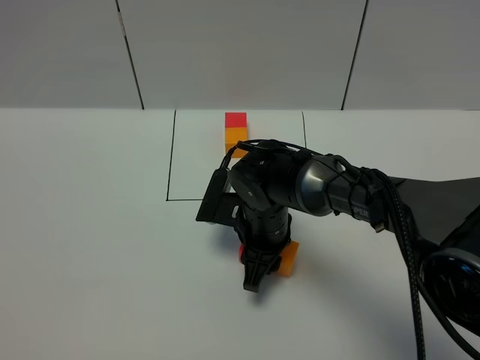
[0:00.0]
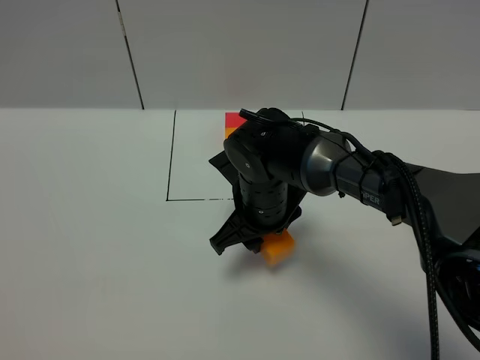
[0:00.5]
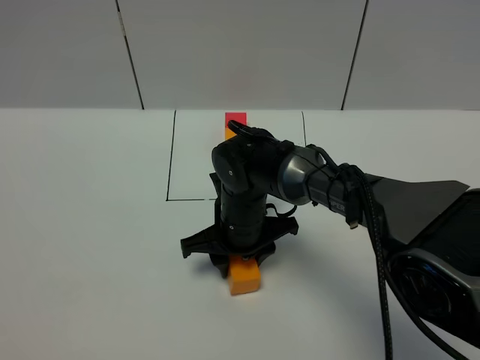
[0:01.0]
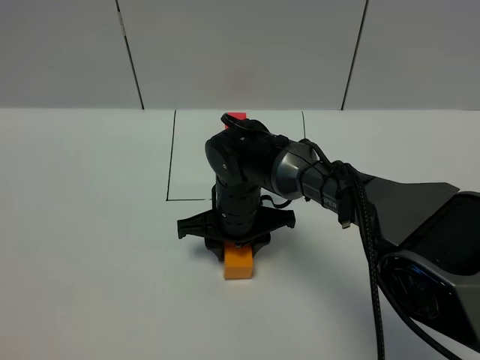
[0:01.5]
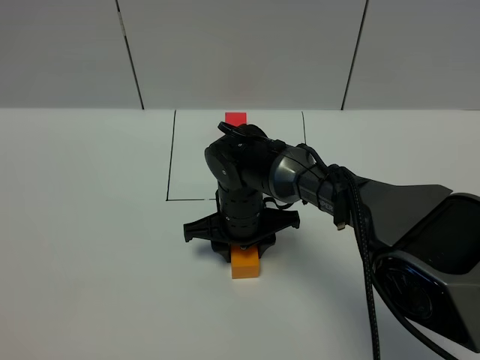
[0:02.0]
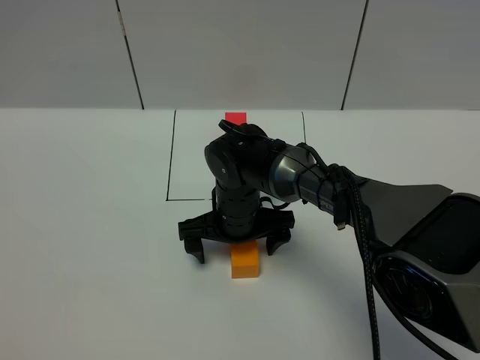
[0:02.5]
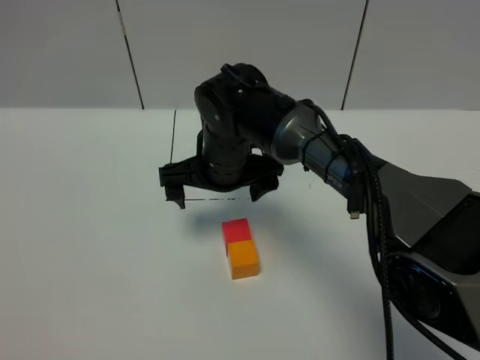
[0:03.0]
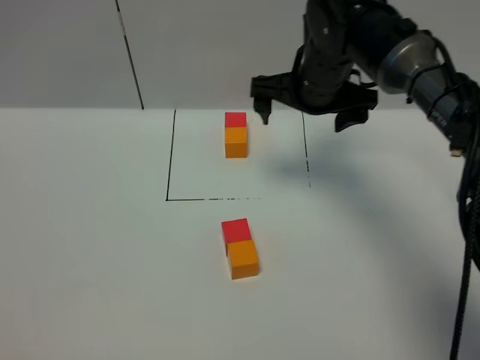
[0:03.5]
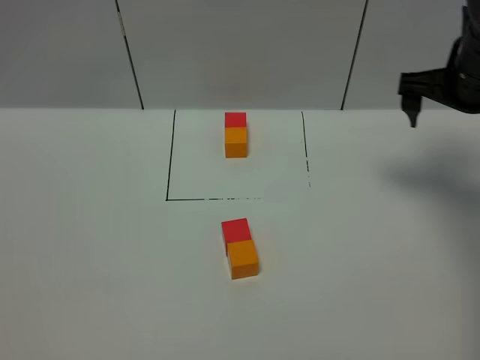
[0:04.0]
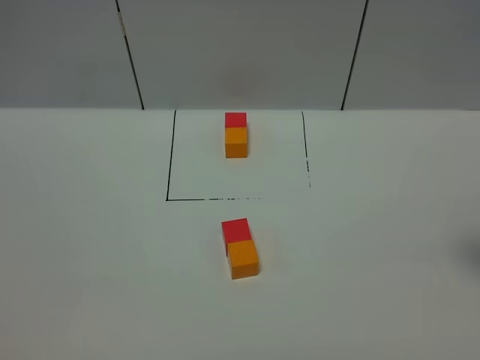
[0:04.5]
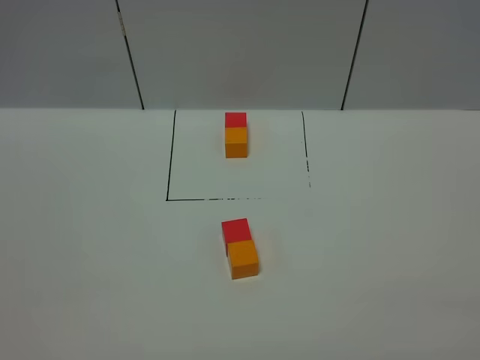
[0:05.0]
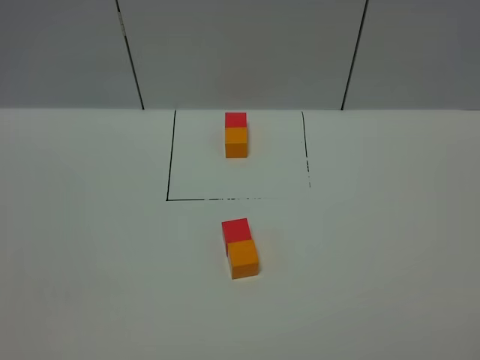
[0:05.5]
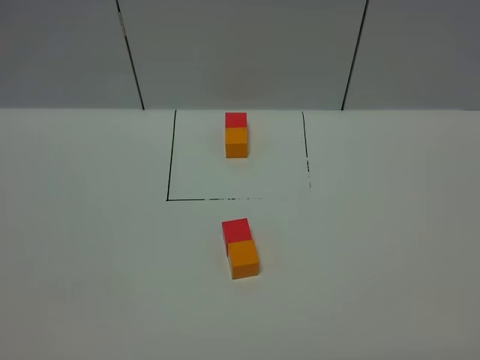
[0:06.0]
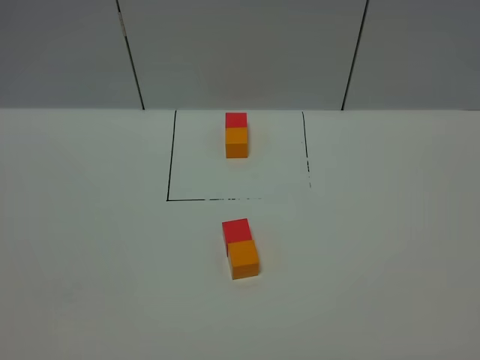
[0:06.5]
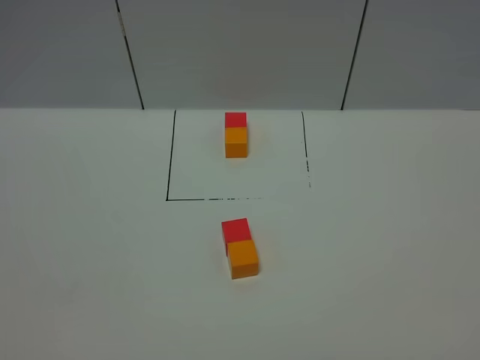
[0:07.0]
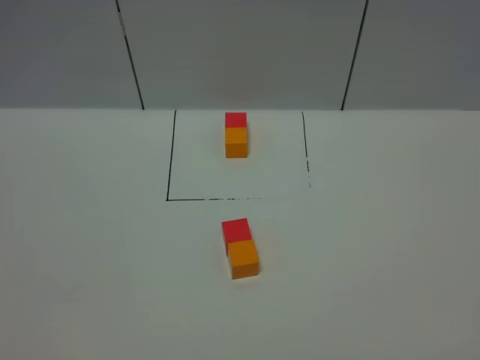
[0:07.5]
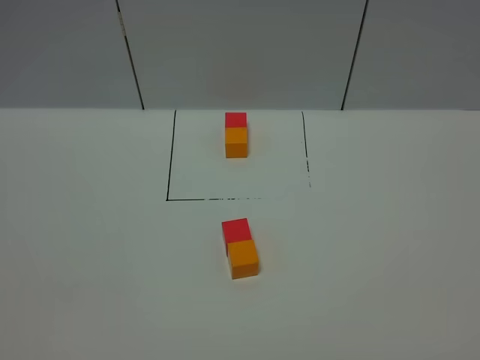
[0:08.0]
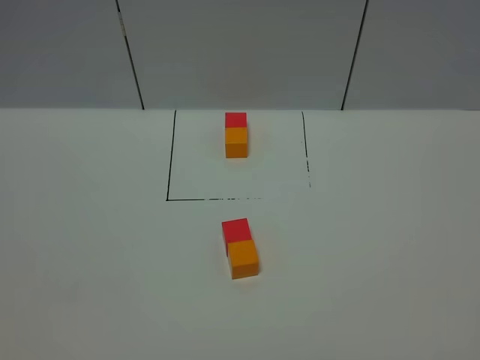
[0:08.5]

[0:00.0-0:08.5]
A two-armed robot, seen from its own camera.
Task of the whole recording: According to the building block template in front, assemble the scattered blocks together.
Step, 0:00.0 to 0:02.0: Adjust the pose of the building blocks.
0:02.0 to 0:04.0: The right gripper goes about 35 cm to the right and upward, and opens.
0:04.0 to 0:06.5: The right gripper is displaced backward by approximately 40 cm.

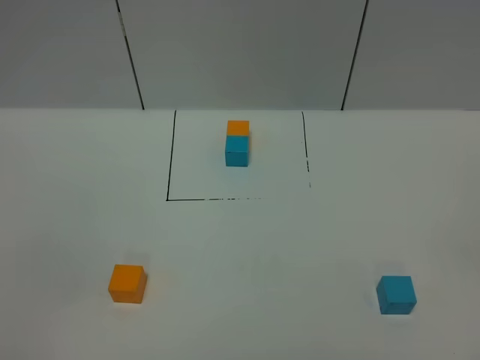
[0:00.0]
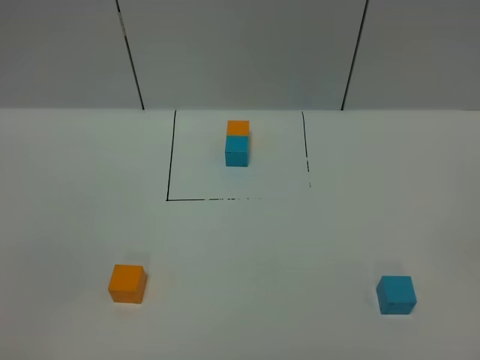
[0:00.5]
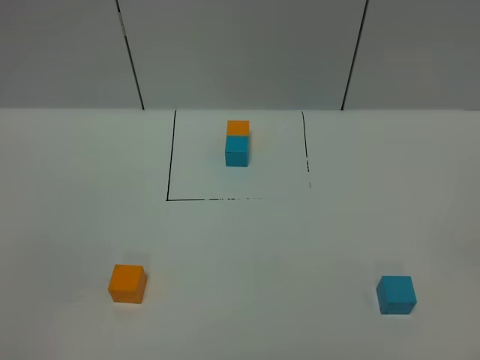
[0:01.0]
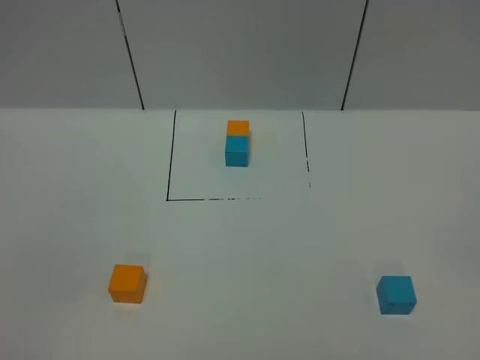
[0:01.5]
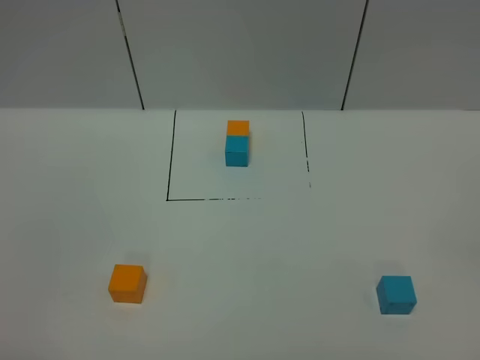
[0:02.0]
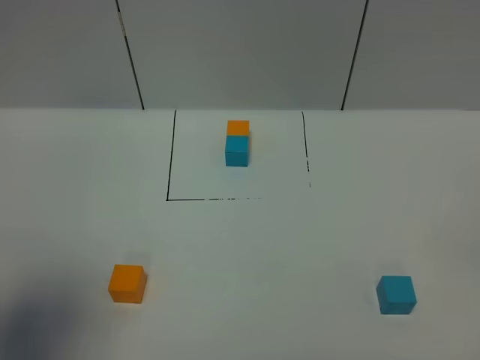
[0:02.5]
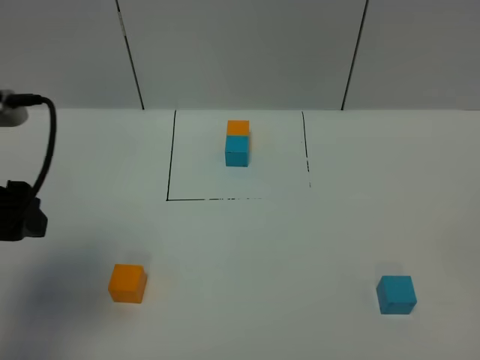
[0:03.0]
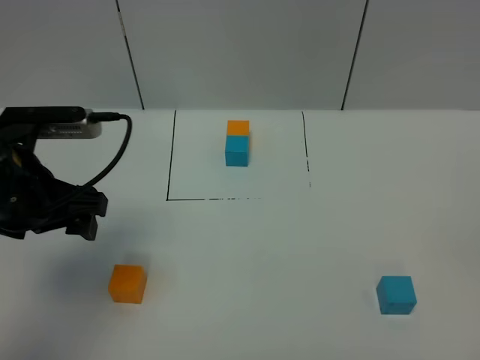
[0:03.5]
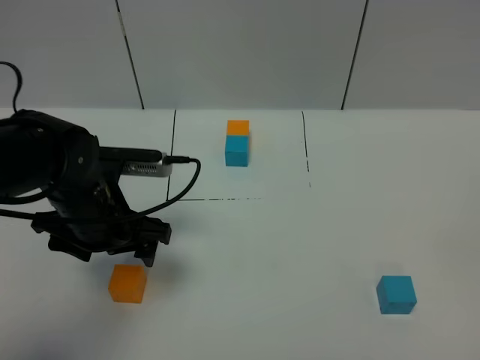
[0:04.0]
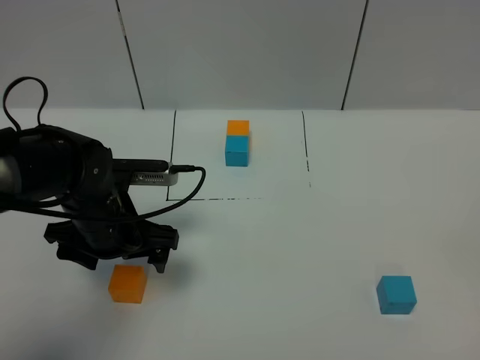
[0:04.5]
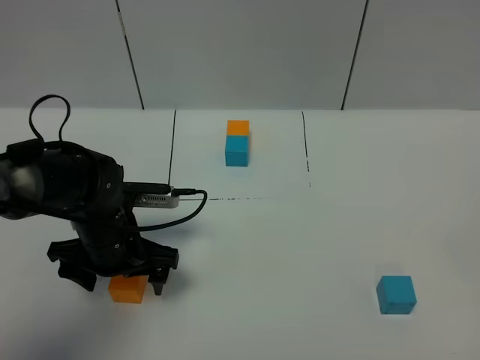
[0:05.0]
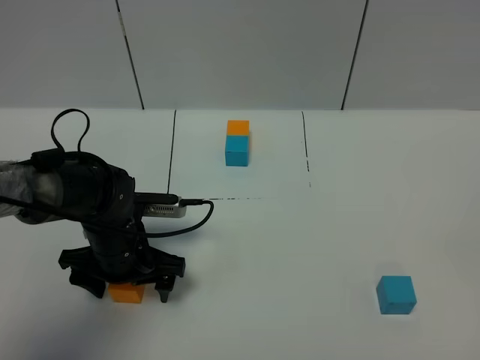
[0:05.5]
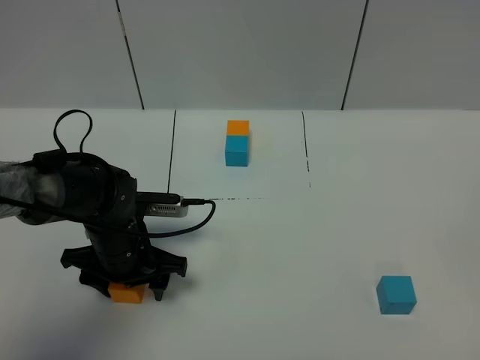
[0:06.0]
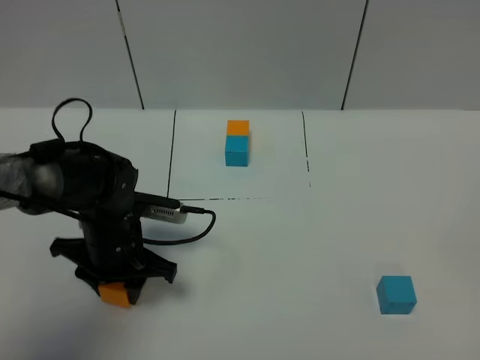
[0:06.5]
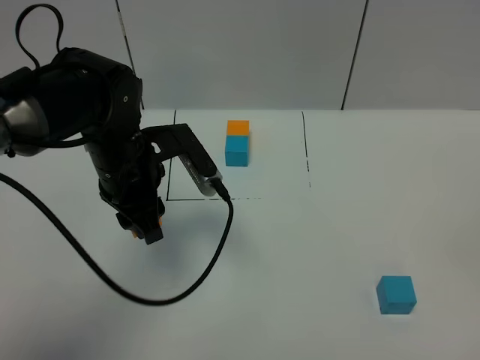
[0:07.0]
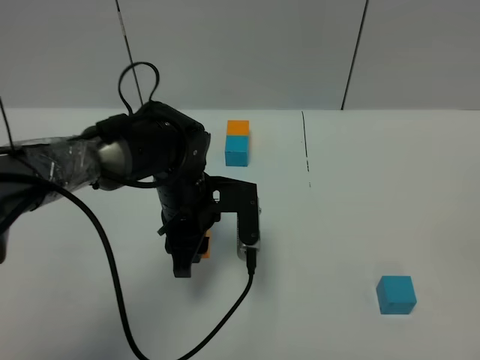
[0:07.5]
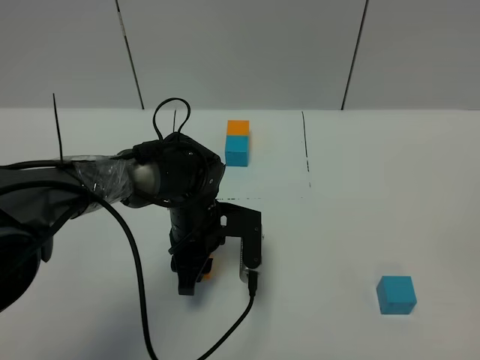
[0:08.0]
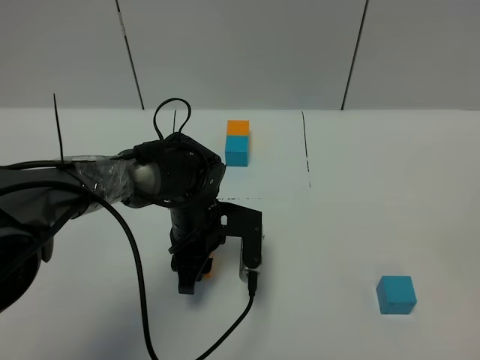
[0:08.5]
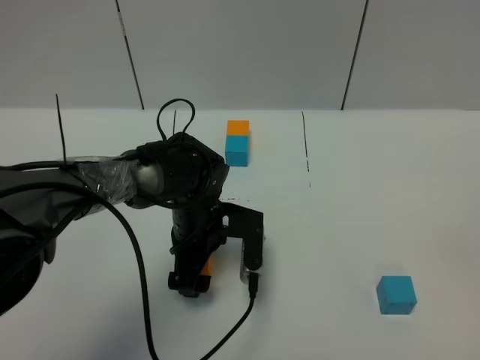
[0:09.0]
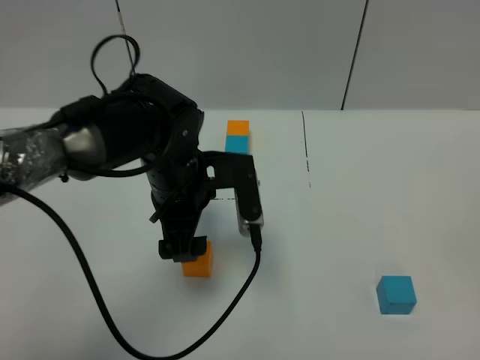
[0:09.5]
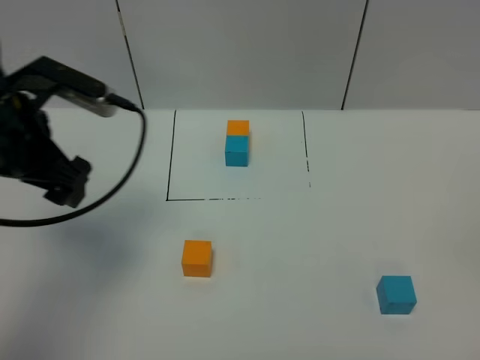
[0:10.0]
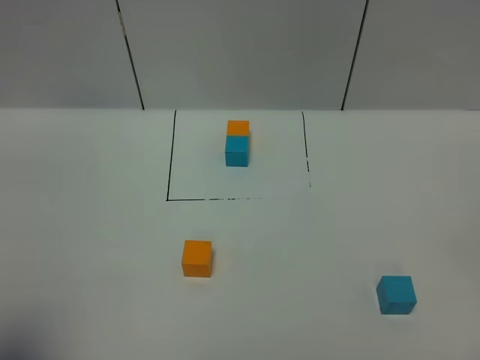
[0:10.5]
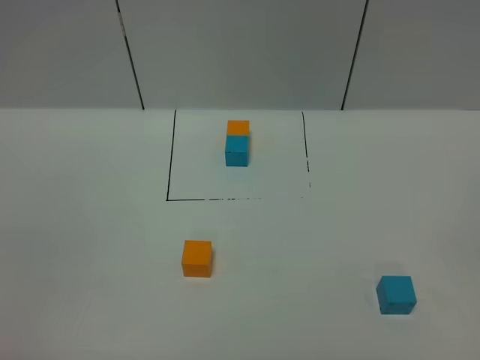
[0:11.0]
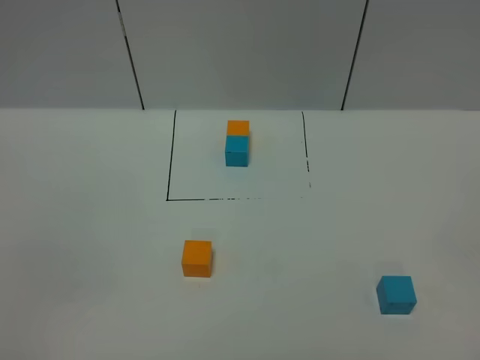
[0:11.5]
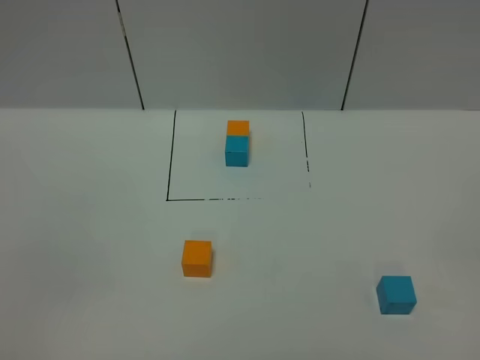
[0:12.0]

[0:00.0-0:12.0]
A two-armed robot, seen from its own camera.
Task of the whole recording: According to the building block template in front, assemble the scattered blocks together.
Step, 0:03.0 to 0:09.0: Put the orange cube in the center of the table.
0:02.0 to 0:04.0: The left gripper heads forward, downward and to the right, covering roughly 35 cm.
0:04.0 to 0:06.0: The left gripper travels downward by about 10 cm.
0:06.0 to 0:08.0: The left gripper moves to the right, about 10 cm, moves roughly 10 cm upward and comes back, and closes up.
0:08.0 to 0:10.0: The left gripper travels upward and to the left by about 25 cm, and opens up.
0:10.0 to 0:12.0: The left gripper travels backward by about 30 cm, and closes up.

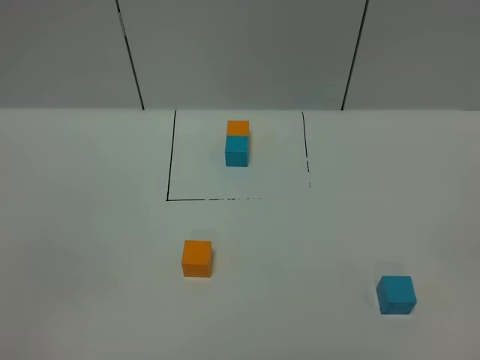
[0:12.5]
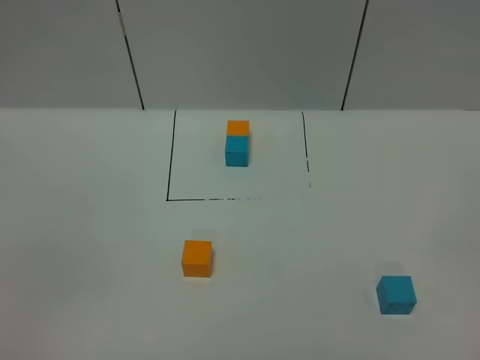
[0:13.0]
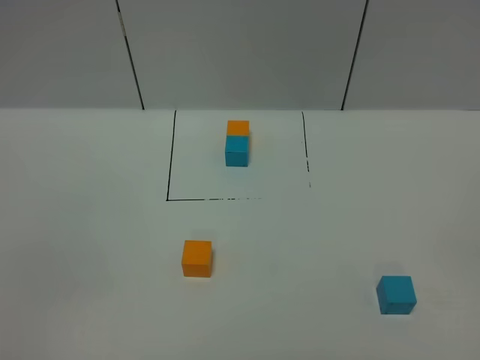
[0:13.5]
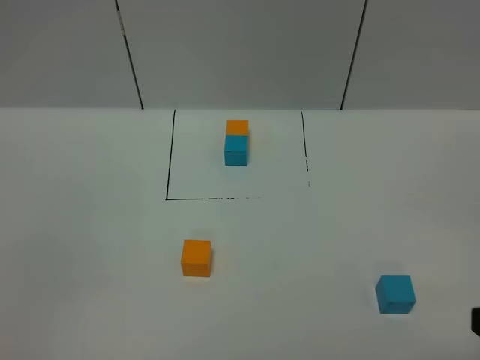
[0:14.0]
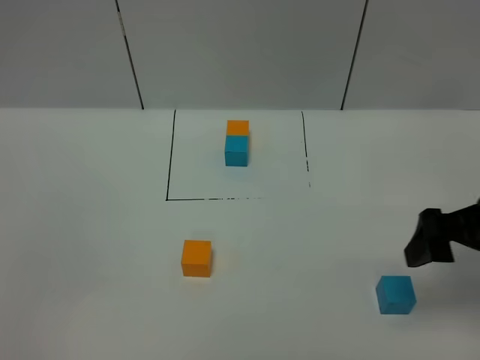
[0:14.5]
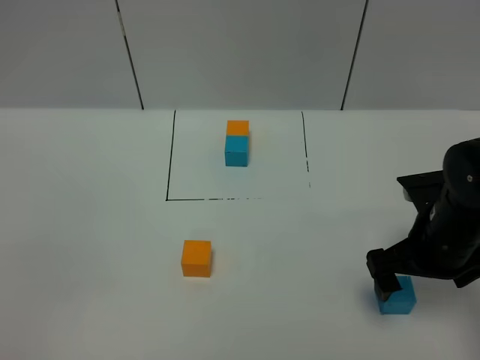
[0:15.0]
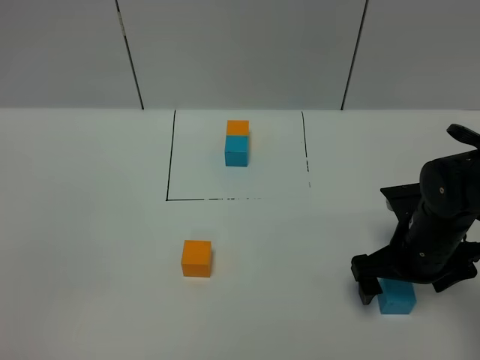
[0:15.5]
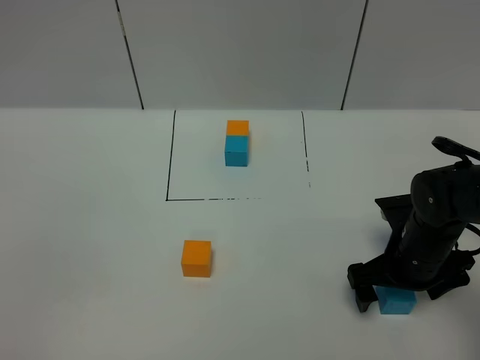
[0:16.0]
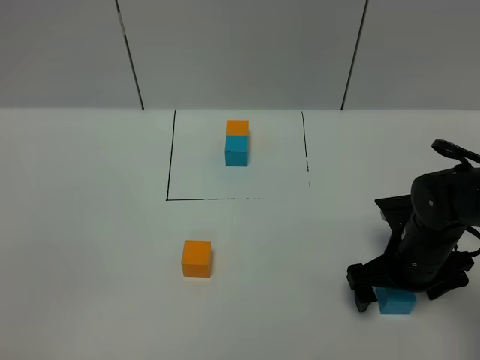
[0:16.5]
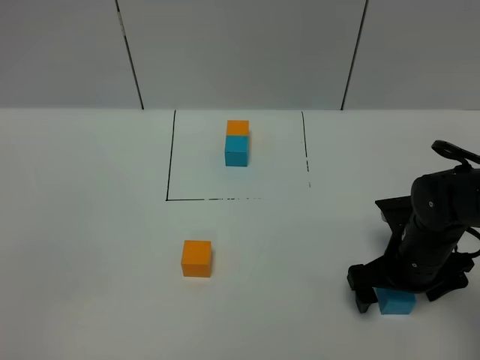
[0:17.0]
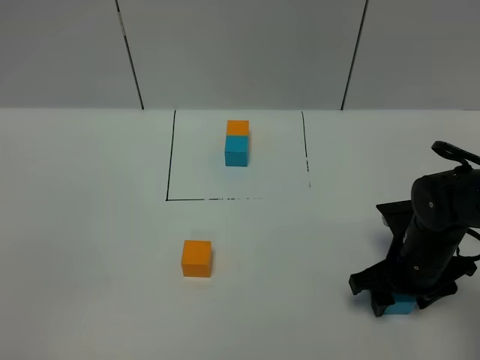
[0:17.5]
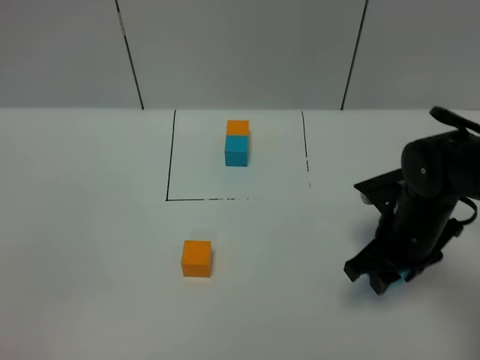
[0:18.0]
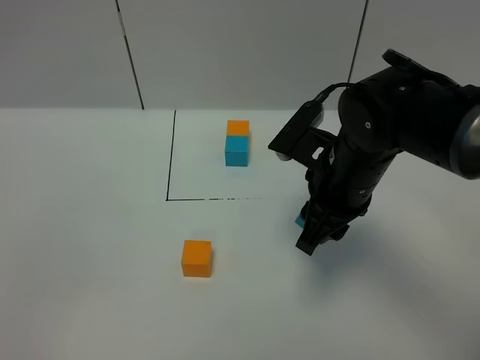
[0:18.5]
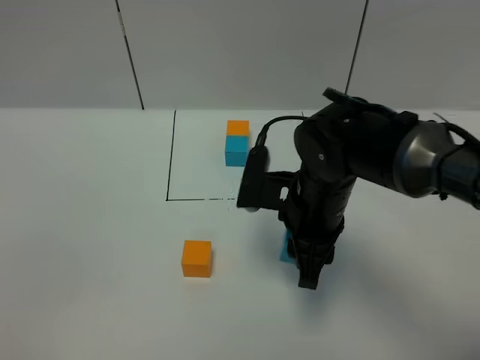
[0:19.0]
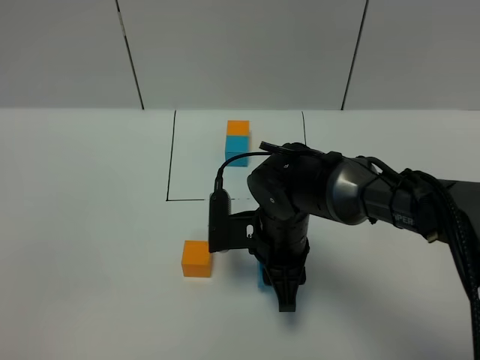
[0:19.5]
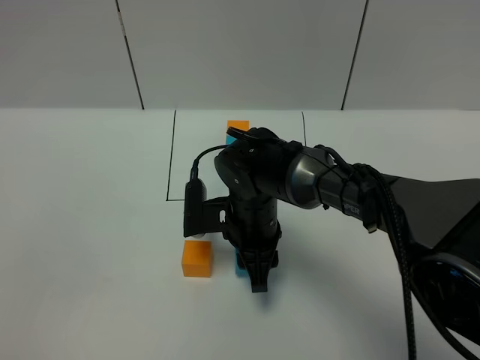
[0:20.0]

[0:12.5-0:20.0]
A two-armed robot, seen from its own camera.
Task of the whole recording: According to the building block template in front, assemble the scattered blocks together.
0:12.5 to 0:14.5: The right gripper is displaced forward by roughly 25 cm.
0:14.5 to 0:16.5: The right gripper goes approximately 15 cm downward.
0:16.5 to 0:18.0: The right gripper moves approximately 5 cm, and closes its fingers.
0:18.0 to 0:20.0: The right gripper travels to the left by roughly 20 cm.
